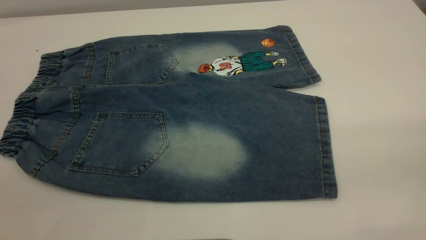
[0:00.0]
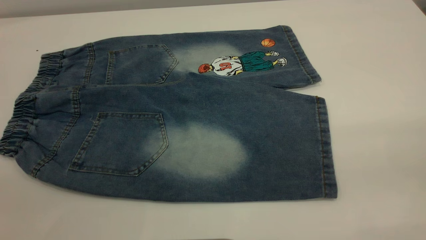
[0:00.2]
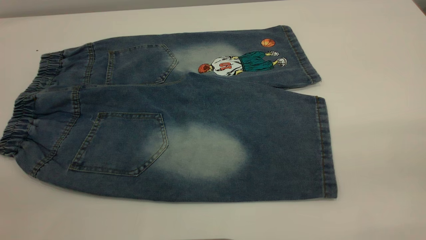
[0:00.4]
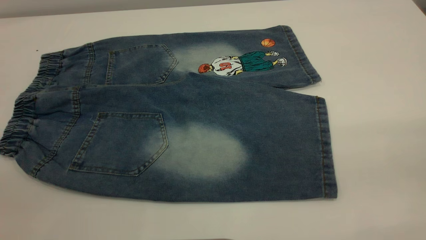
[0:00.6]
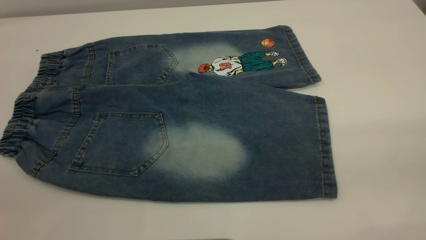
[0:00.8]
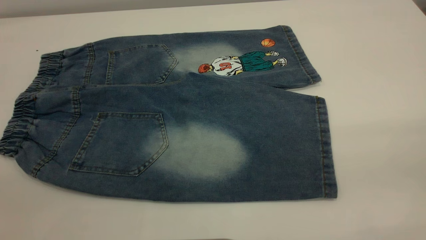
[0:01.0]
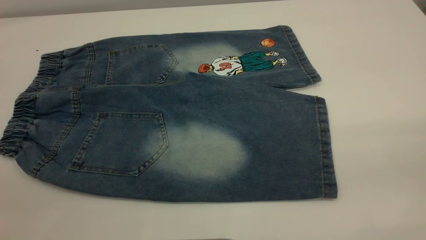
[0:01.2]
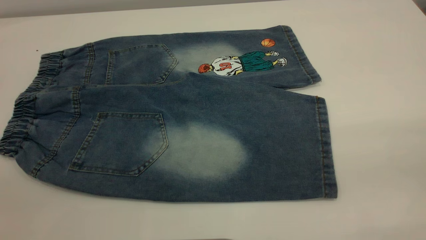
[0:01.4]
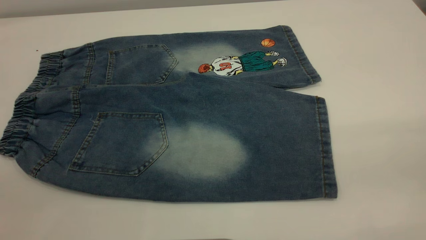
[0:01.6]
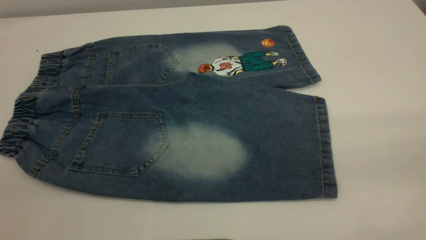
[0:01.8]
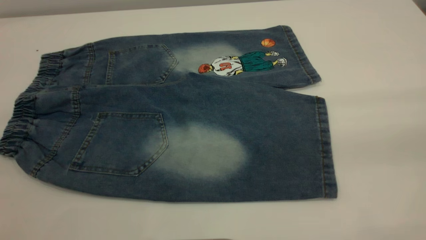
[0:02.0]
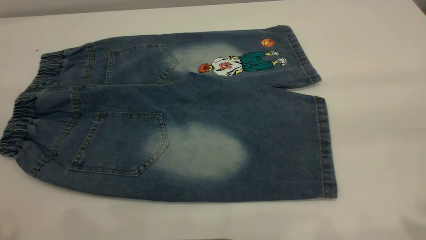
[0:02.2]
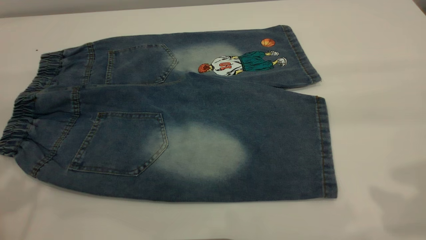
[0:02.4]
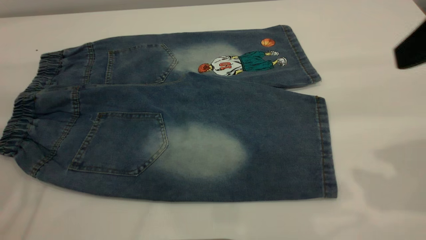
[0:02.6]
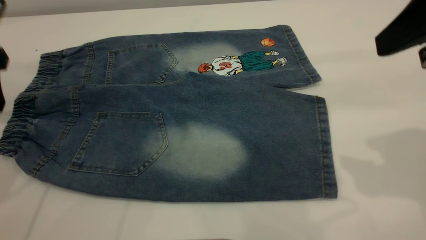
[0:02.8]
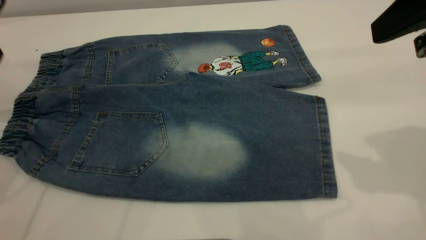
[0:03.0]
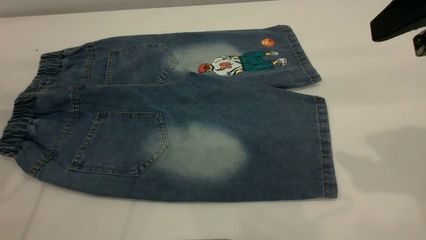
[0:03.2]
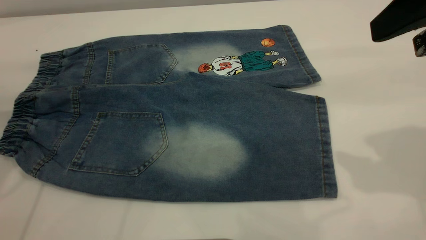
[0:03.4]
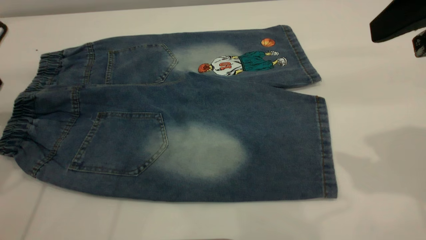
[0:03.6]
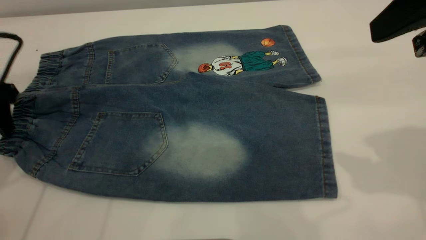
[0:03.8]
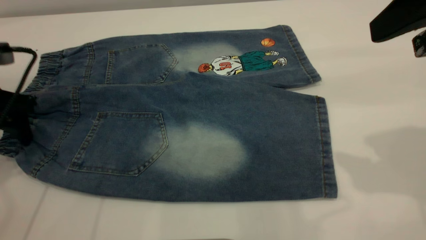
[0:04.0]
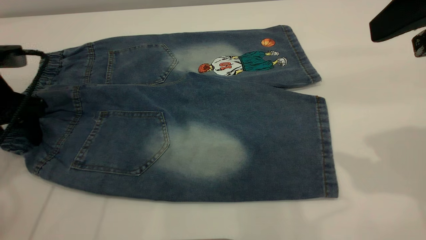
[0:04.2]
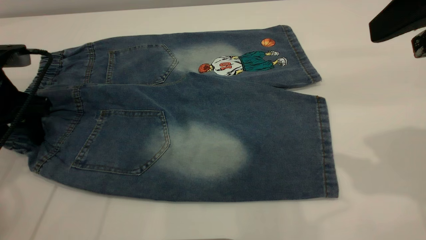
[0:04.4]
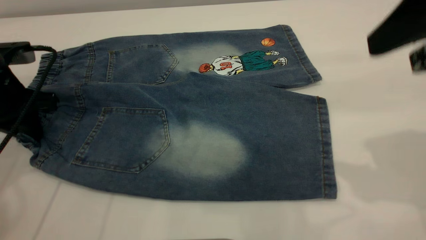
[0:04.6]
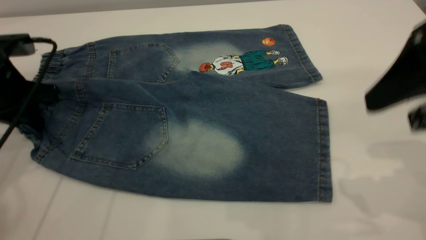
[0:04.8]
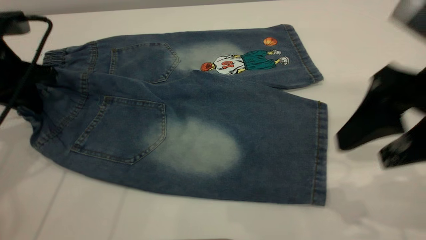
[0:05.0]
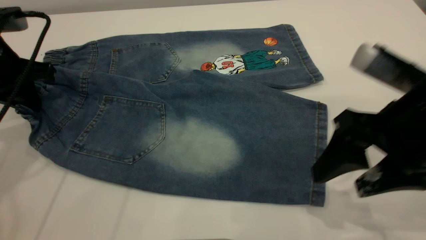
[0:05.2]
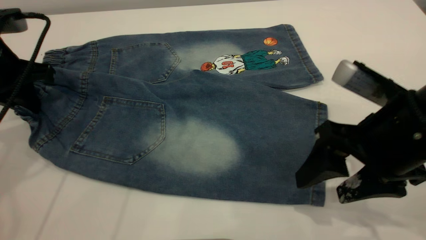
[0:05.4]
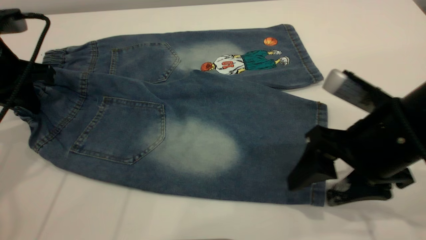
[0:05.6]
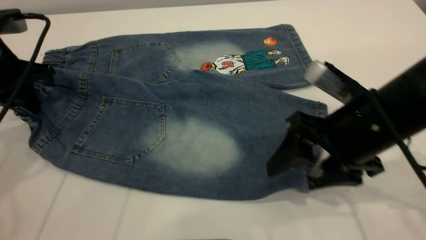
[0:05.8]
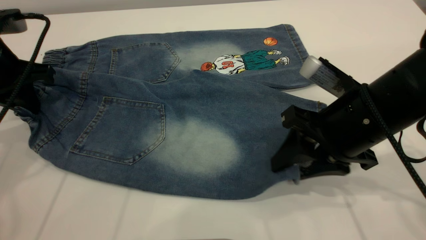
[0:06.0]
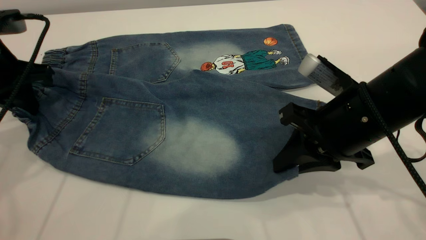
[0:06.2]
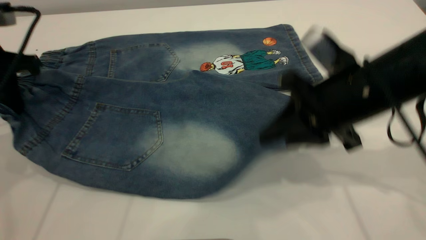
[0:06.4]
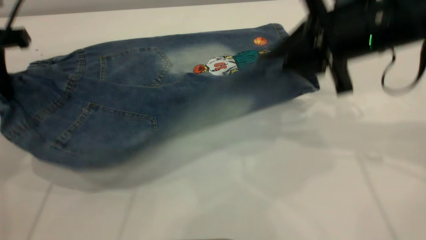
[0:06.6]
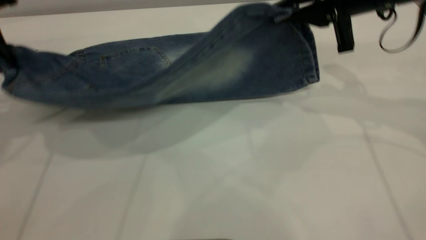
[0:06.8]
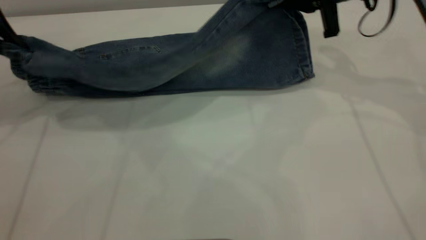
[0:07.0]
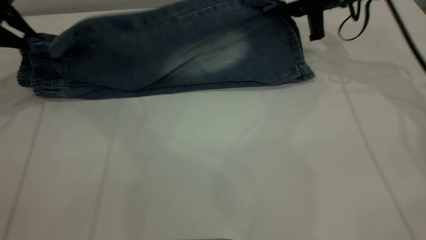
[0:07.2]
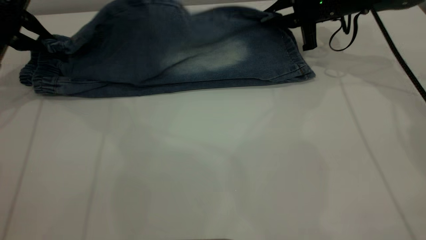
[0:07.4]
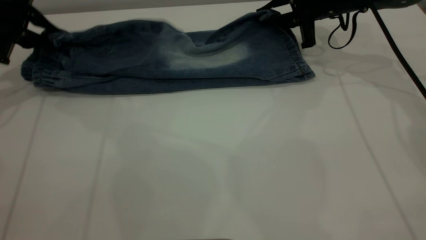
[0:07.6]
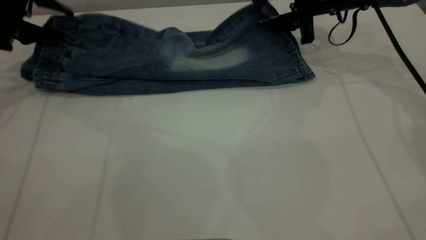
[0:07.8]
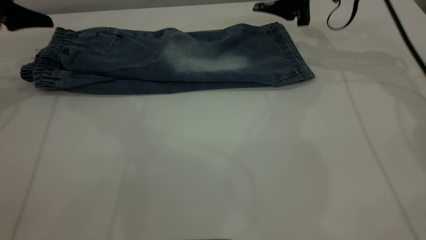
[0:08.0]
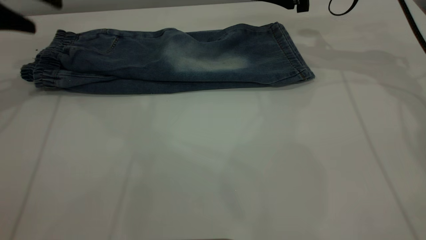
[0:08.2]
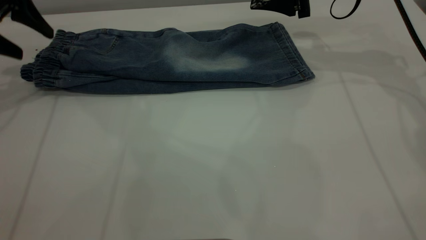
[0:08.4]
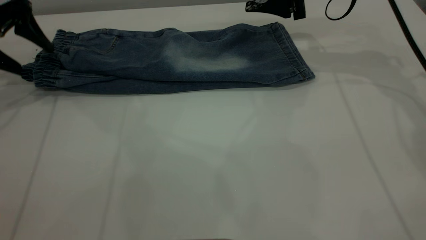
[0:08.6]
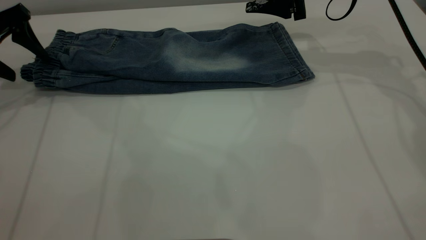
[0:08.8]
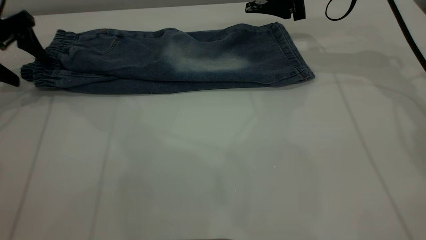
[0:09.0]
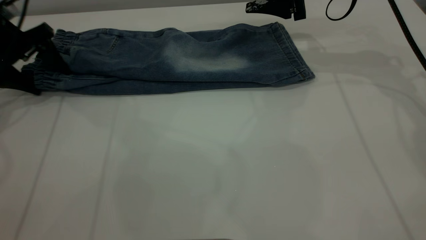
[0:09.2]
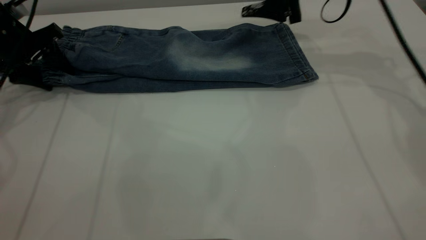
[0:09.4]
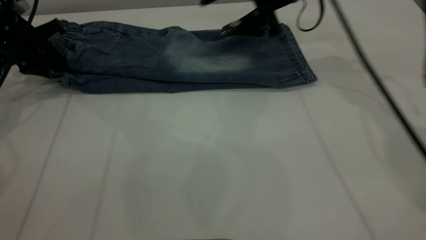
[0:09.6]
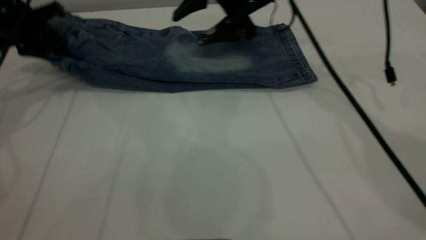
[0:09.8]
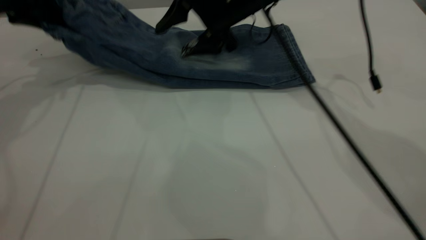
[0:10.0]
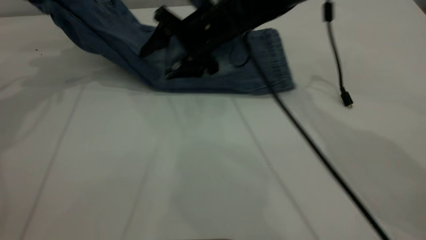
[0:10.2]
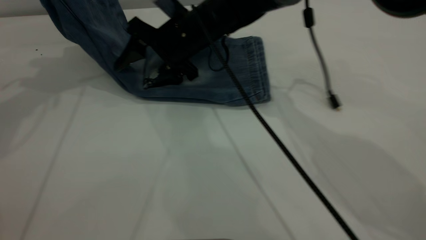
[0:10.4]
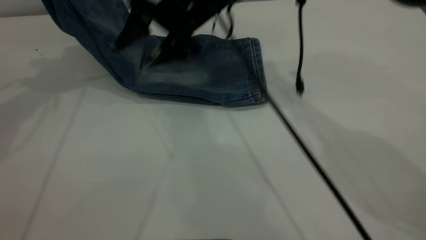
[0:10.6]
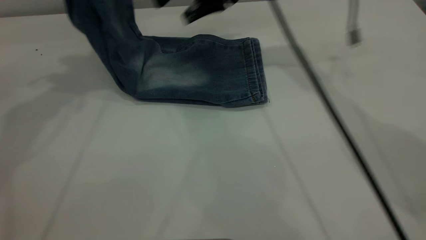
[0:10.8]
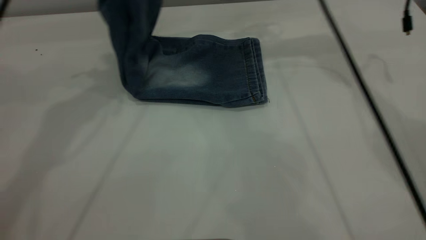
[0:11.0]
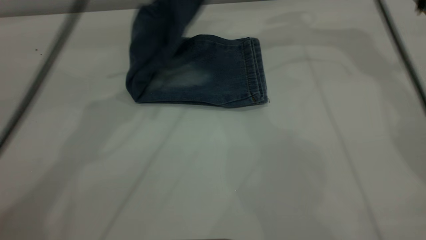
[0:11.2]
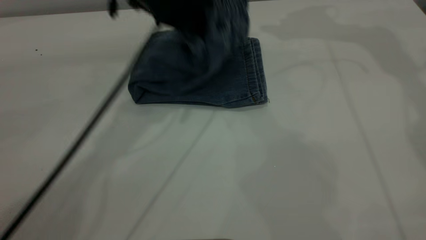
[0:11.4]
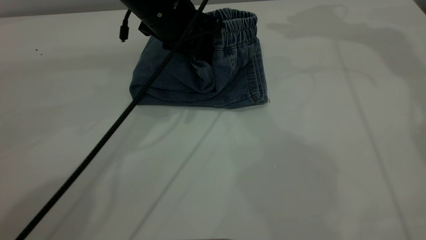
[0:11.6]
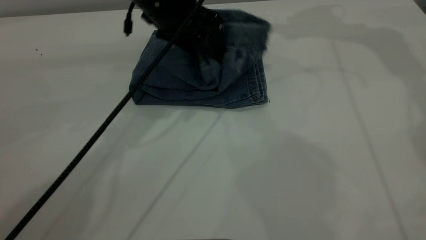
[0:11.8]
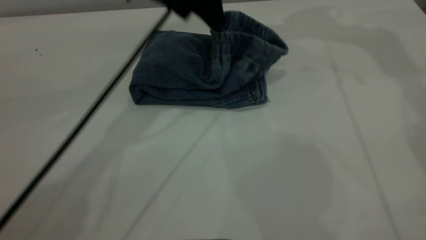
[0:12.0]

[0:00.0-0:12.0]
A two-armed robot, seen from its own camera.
Step, 0:00.0 to 0:08.0: Fold the bottom of the pants upward.
0:00.0 to 0:01.6: Both grippers stay put.
0:01.6 to 0:03.0: The right gripper travels forward by approximately 20 cm.
0:03.0 to 0:04.4: The left gripper shifts some 10 cm downward.
0:04.4 to 0:06.0: The right gripper moves downward and to the left, about 20 cm, and closes its fingers; the left gripper closes.
0:06.0 to 0:07.6: The left gripper shifts roughly 15 cm forward and to the left. Meanwhile the right gripper is displaced forward by about 25 cm.
0:07.6 to 0:09.0: The right gripper goes approximately 5 cm upward, and opens up, while the left gripper opens.
0:09.0 to 0:10.4: The left gripper moves upward, roughly 15 cm, and closes. Meanwhile the right gripper moves to the left, some 20 cm.
0:10.4 to 0:12.0: The left gripper heads to the right, covering some 25 cm, and opens. Meanwhile the right gripper is displaced to the right and upward by approximately 35 cm.

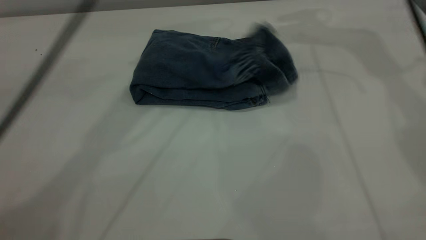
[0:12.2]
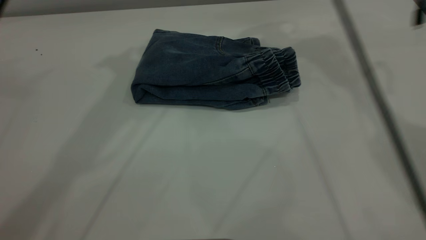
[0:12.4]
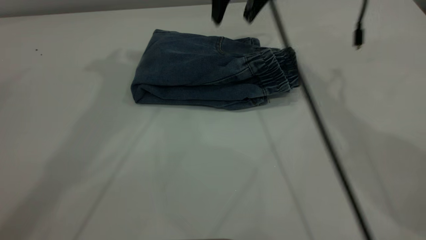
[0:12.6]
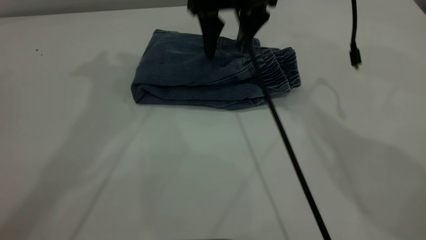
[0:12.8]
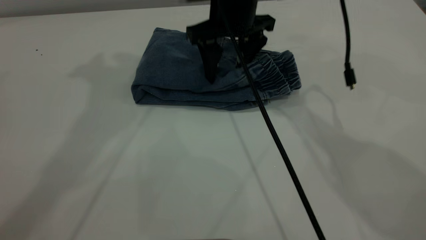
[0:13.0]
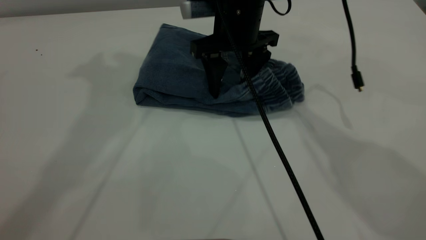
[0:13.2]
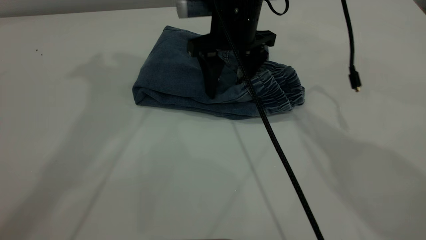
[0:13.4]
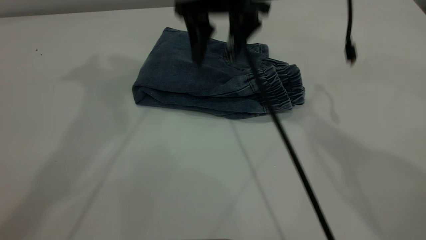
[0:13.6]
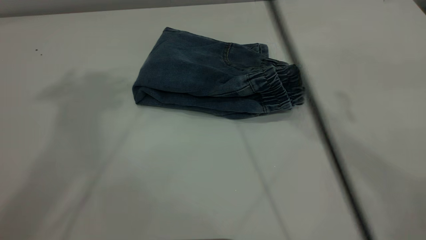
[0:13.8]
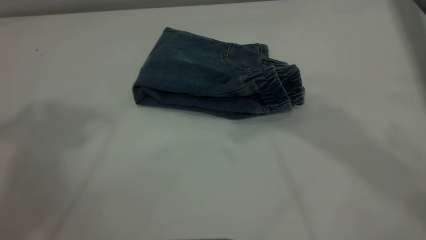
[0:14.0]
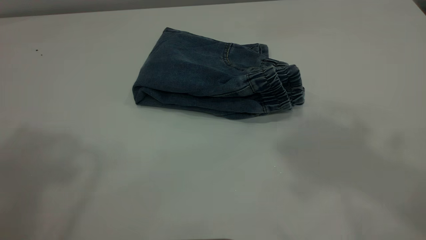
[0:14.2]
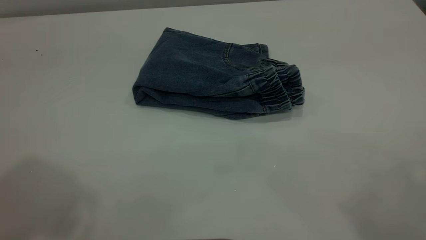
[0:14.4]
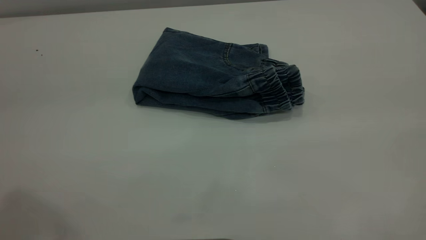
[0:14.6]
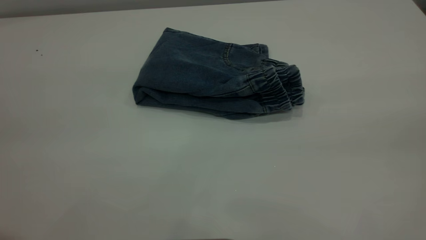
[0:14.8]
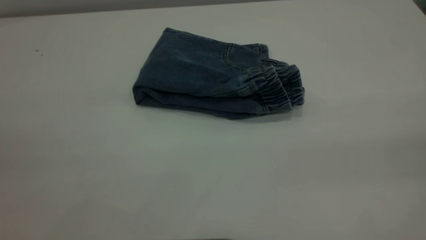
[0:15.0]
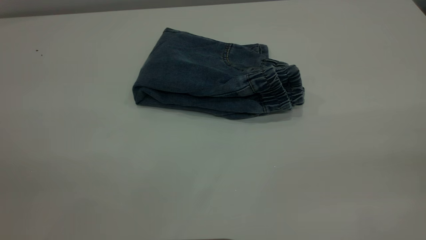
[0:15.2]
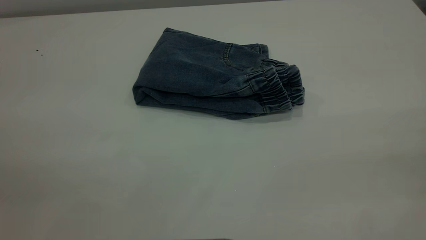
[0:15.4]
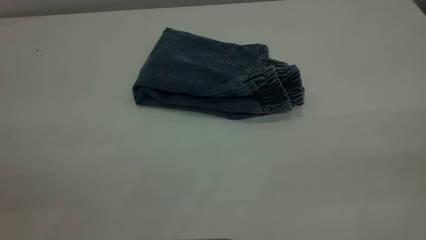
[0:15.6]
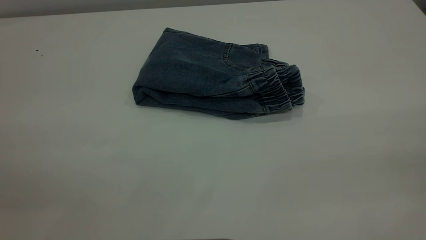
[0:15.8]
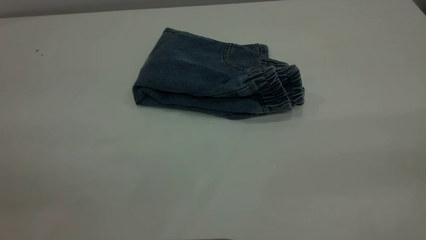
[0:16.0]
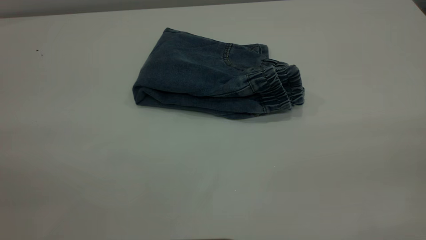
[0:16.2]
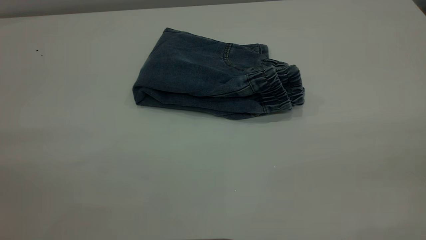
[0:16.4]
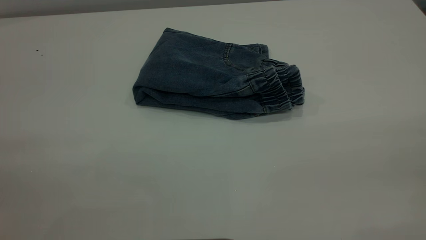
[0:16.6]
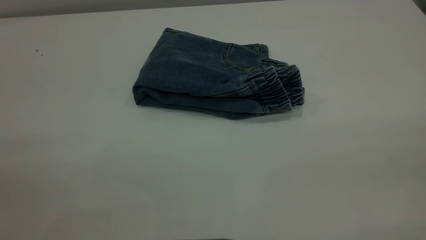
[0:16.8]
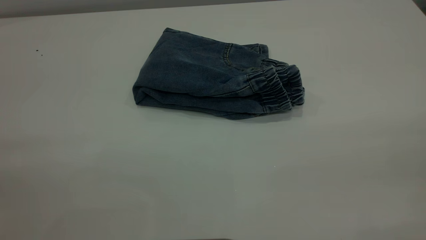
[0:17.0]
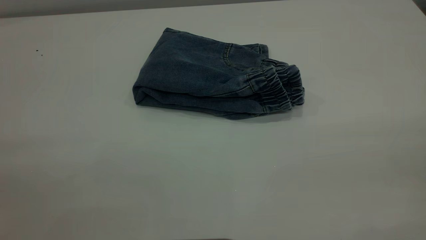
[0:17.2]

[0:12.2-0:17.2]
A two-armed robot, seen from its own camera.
0:12.2 to 0:13.8: The left gripper travels upward, backward and to the left by roughly 20 cm, while the right gripper goes about 20 cm backward and to the left, and moves roughly 15 cm downward and comes back.
0:13.8 to 0:15.6: The right gripper heads backward and to the right, covering some 40 cm.
